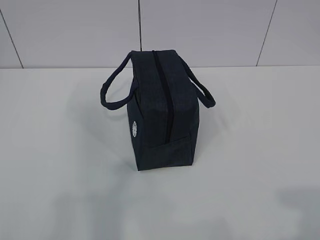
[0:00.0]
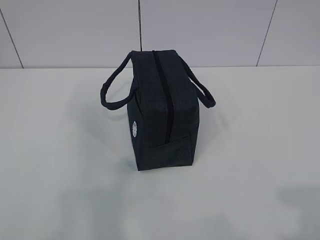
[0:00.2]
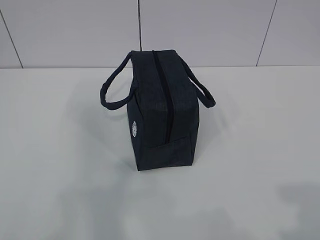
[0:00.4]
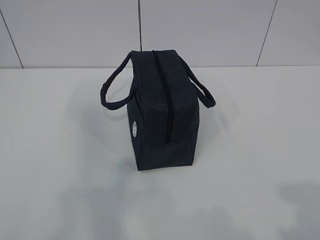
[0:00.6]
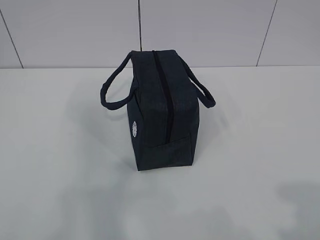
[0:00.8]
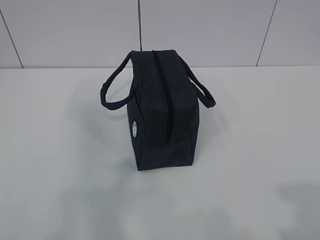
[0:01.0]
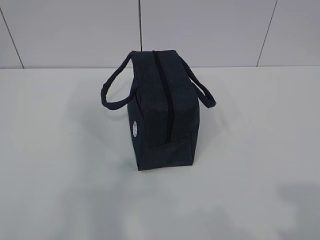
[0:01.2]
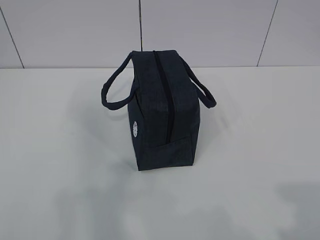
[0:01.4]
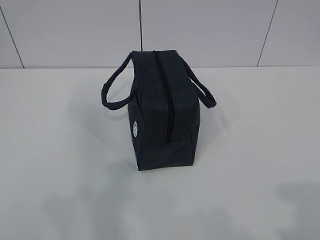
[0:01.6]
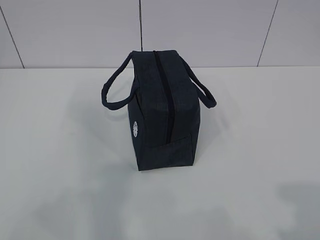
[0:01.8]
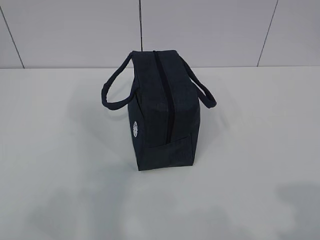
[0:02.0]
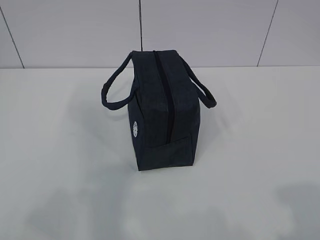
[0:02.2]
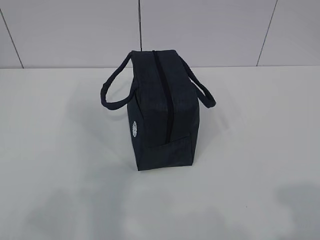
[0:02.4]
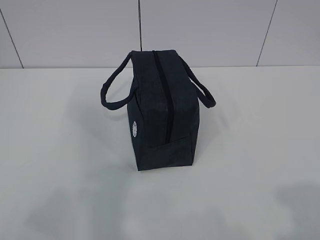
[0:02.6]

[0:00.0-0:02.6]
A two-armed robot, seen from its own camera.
0:00.0 to 0:01.2: The two grippers keep their place.
